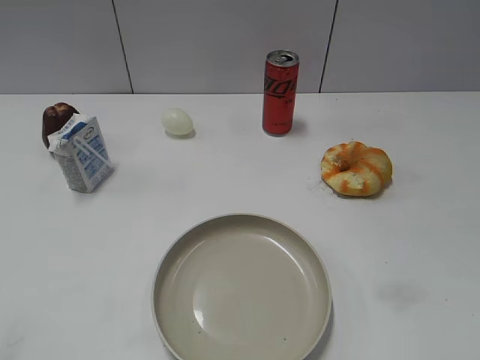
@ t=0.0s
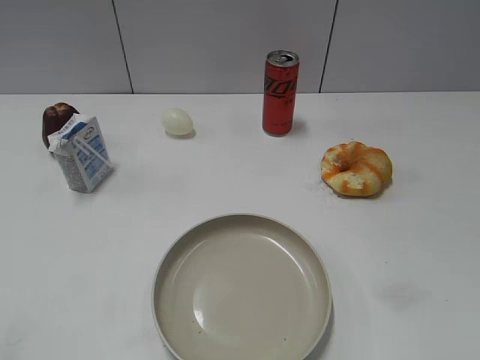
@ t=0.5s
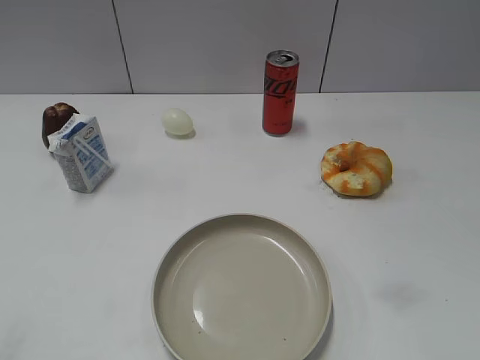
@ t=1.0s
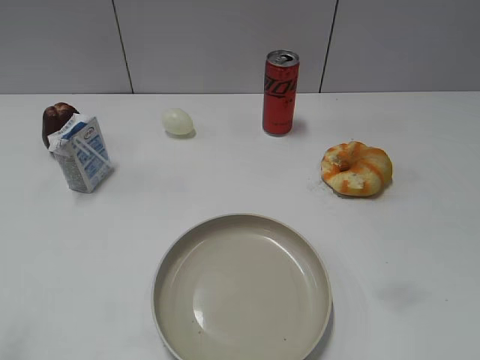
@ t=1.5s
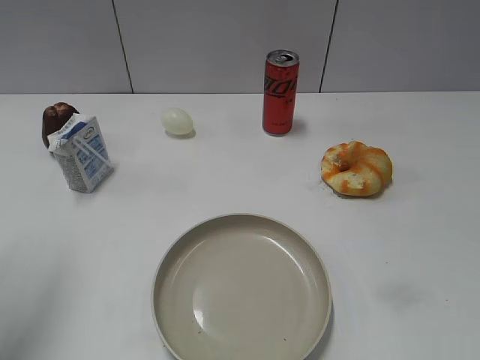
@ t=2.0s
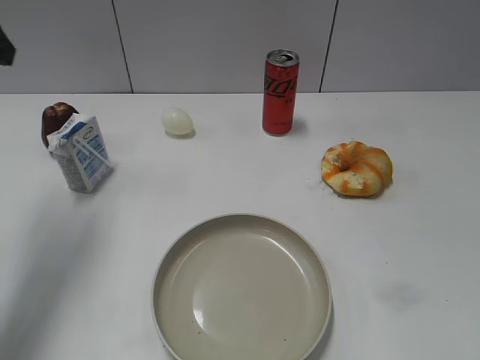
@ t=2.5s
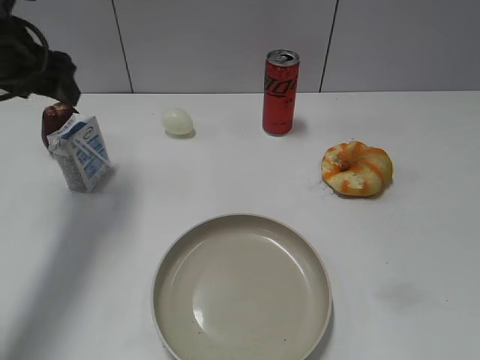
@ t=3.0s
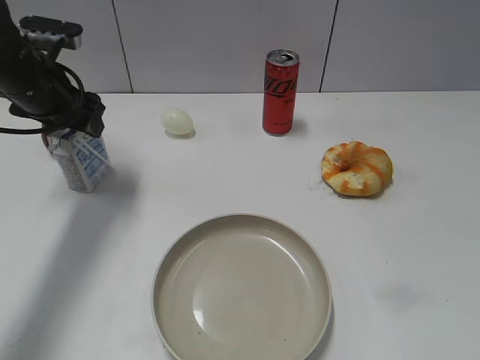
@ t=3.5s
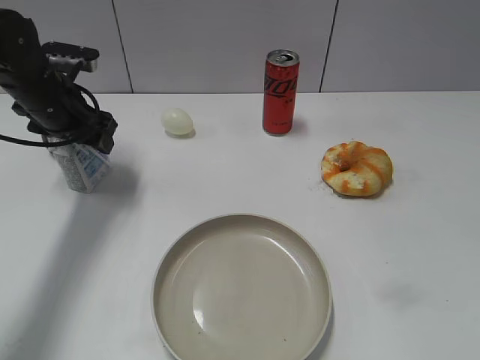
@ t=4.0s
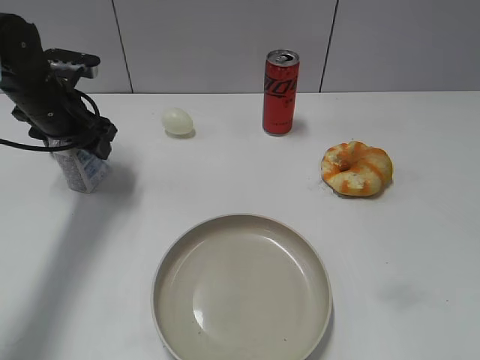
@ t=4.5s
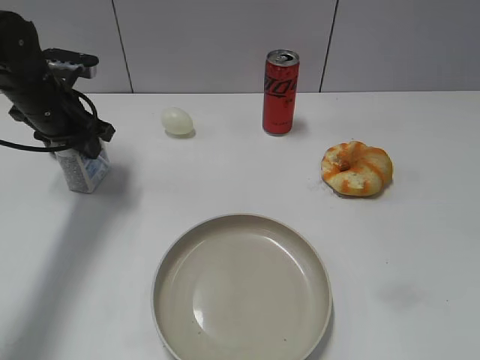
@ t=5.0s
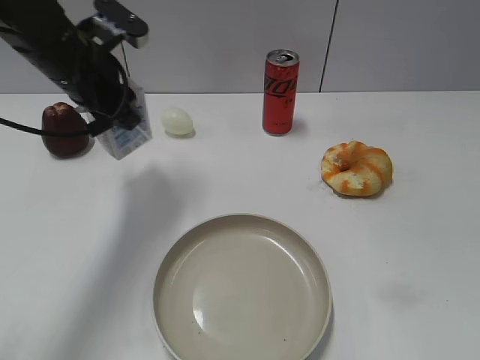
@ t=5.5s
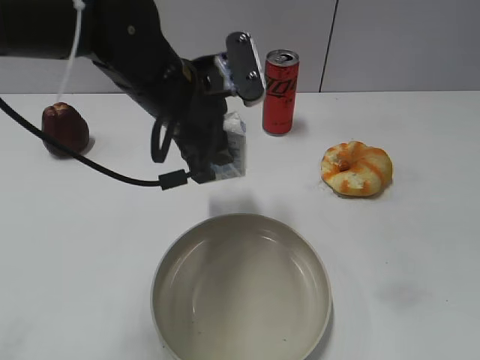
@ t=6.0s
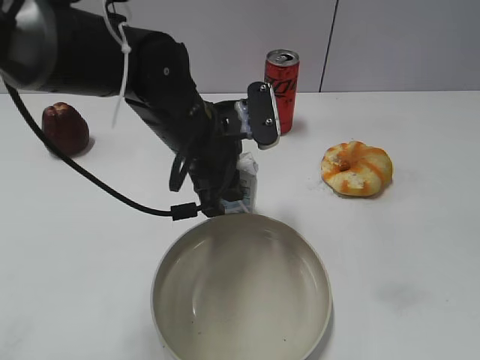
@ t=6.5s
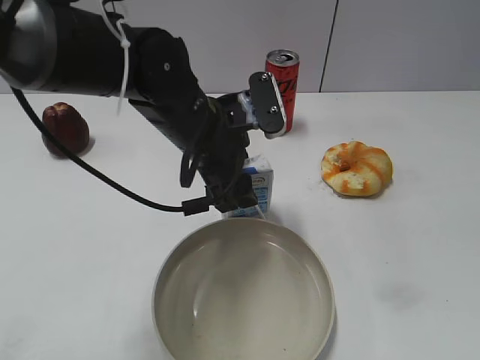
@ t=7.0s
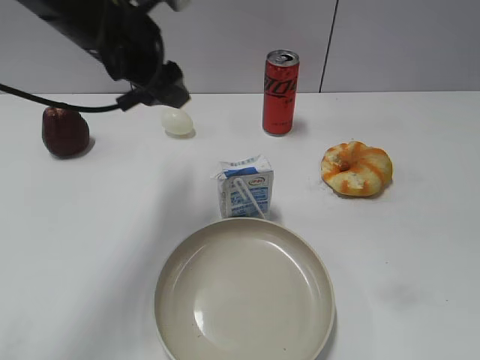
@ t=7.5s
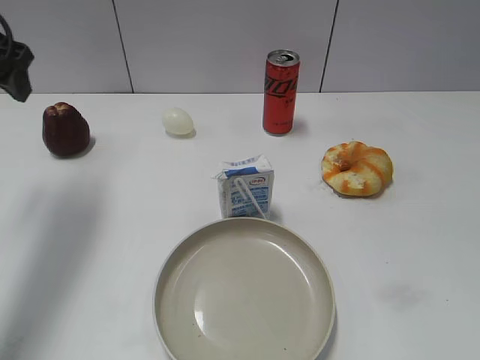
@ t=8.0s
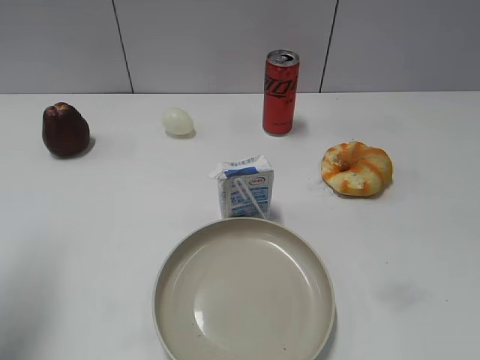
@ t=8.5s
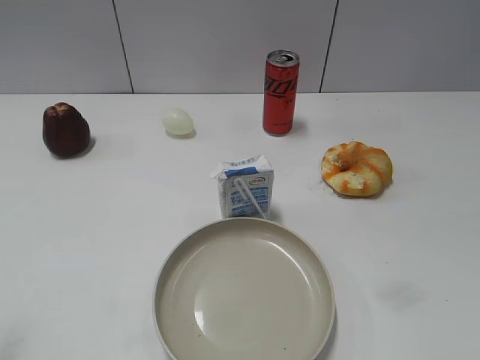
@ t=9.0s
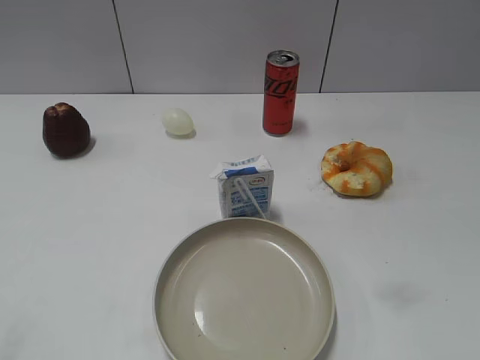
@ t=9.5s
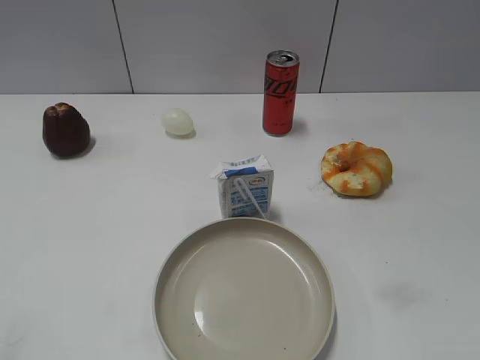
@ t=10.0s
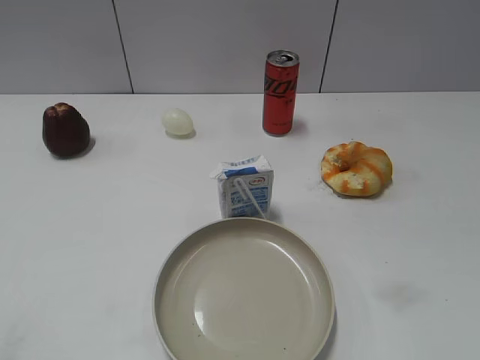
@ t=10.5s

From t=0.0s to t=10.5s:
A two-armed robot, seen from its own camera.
Step, from t=1.0s to t=5.0s: Grasp the milk with left gripper.
Step, from t=5.5s to t=7.0s: Place the milk on the table with left gripper.
From t=2.0s to t=4.0s: The left gripper goes about 25 cm downward and forward.
From t=4.0s to t=6.5s: The left gripper goes some 20 cm to the right and backward, and closes up.
From t=6.5s to t=8.5s: The left gripper heads to the left and backward, covering about 30 cm, and opens its fingers.
From t=8.5s to t=10.5s: The left gripper moves backward, about 15 cm.

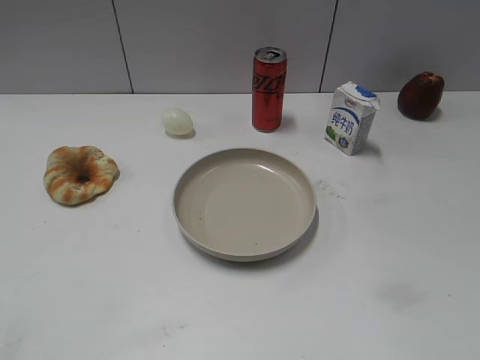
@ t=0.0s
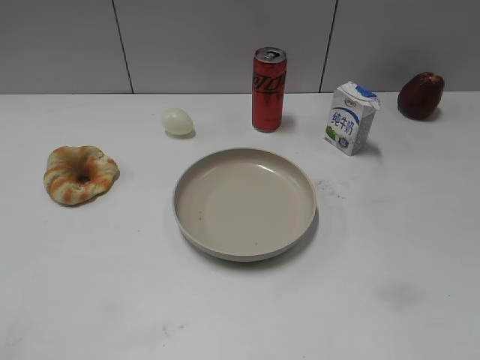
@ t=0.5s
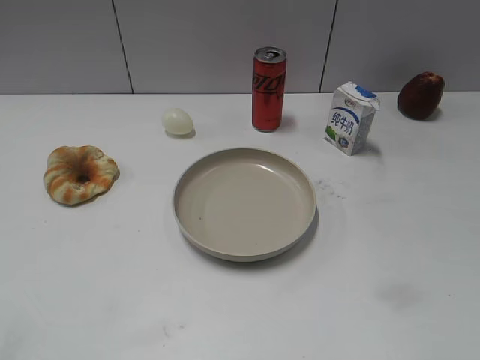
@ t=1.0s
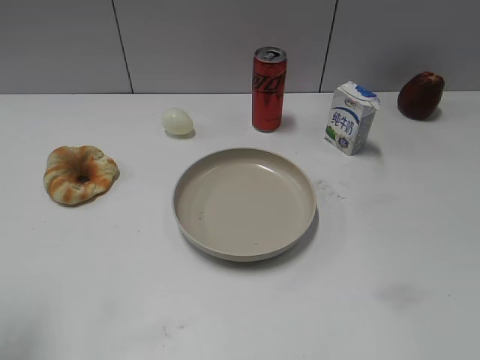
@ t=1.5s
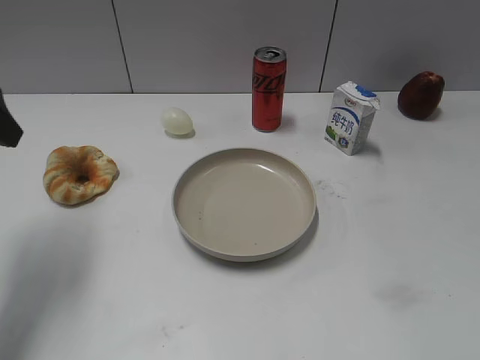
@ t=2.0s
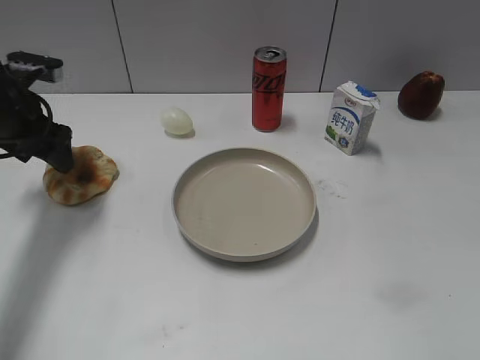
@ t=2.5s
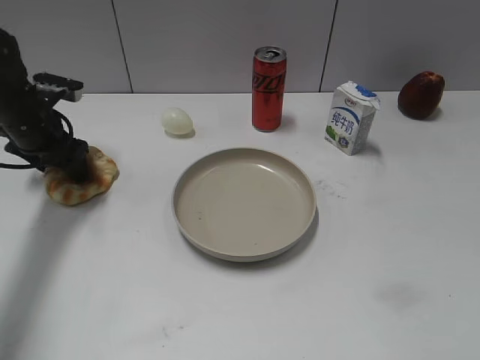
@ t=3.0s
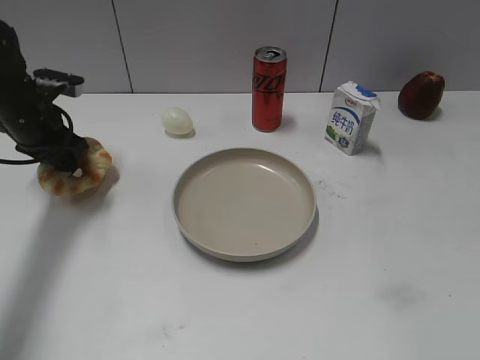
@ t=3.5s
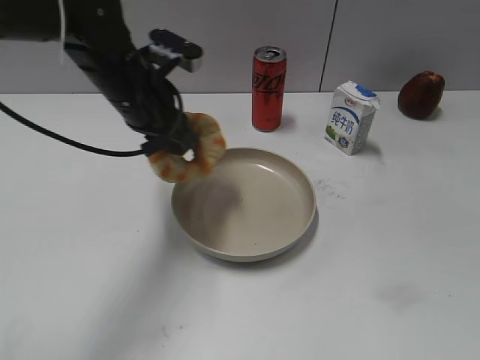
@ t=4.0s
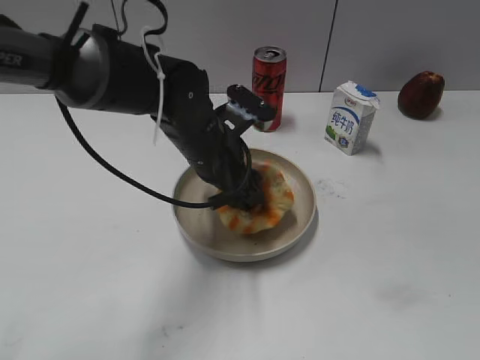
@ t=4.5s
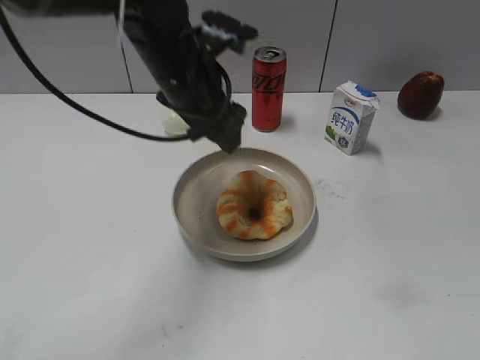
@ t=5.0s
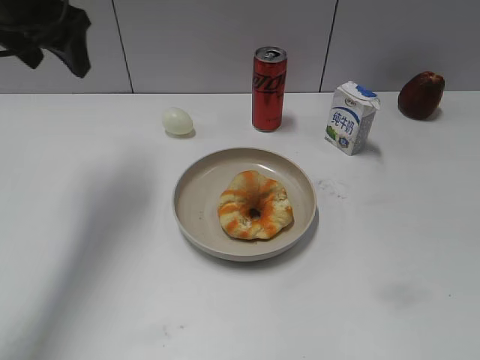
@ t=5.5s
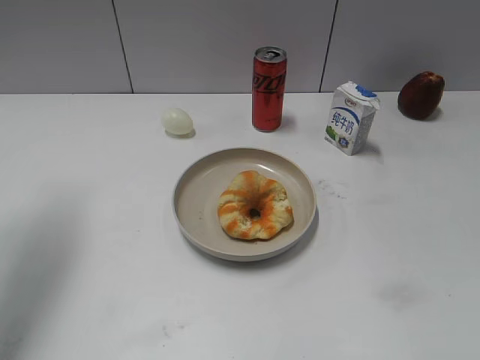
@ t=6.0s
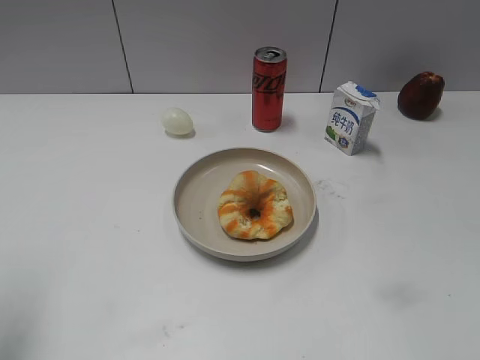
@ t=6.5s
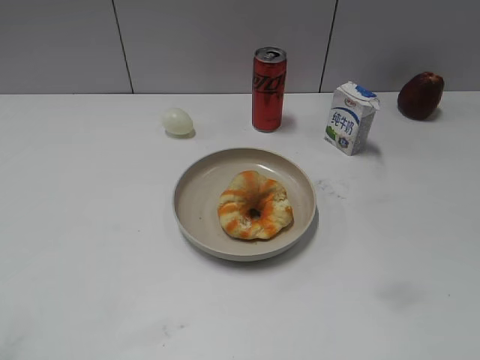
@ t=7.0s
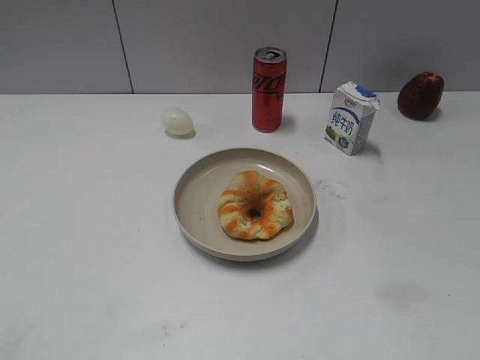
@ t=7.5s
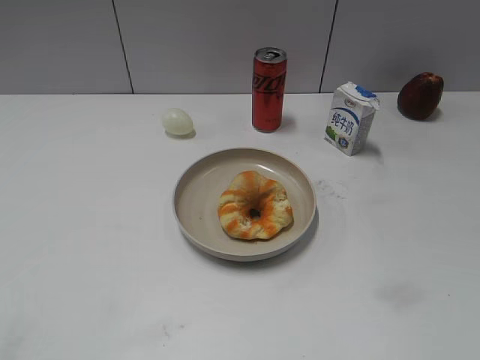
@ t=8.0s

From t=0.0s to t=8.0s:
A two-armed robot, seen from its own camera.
Step, from t=1.0s to t=3.0s: Grasp the round bread with left gripper.
Step, from t=3.5s to t=4.5s: Place the round bread on the plate with left gripper.
From t=2.0s to t=4.0s: The left gripper shifts about 20 cm to the right, forward and downward, and closes.
From t=4.0s to t=6.0s: The left gripper goes some 20 cm to the left and upward, and opens up.
From t=6.0s to t=8.0s: The left gripper is displaced backward by roughly 30 cm.
